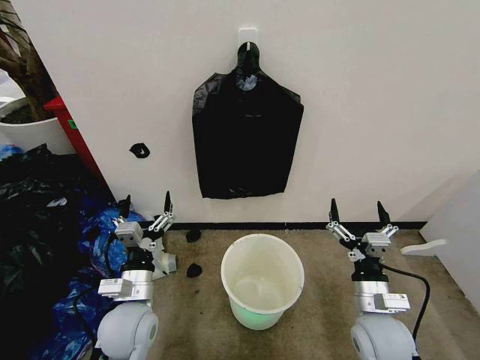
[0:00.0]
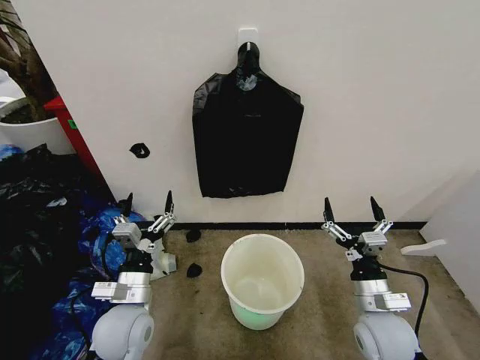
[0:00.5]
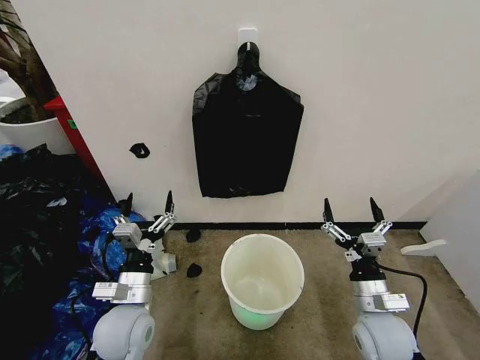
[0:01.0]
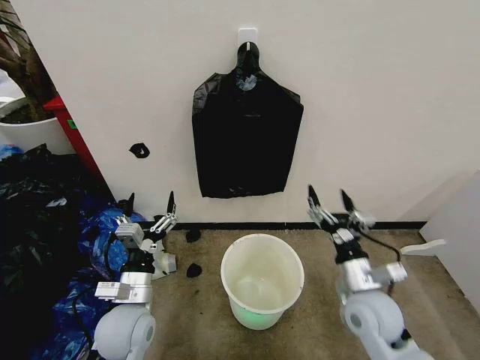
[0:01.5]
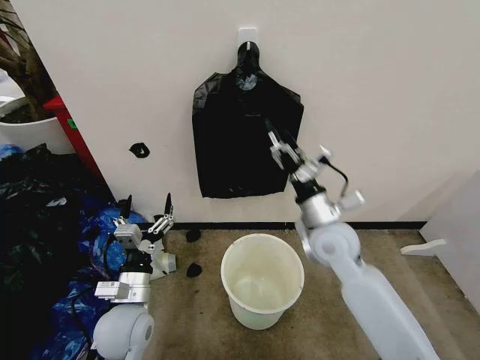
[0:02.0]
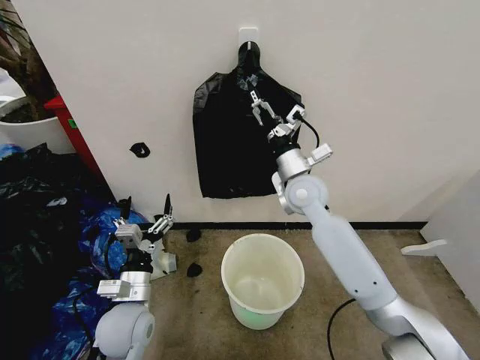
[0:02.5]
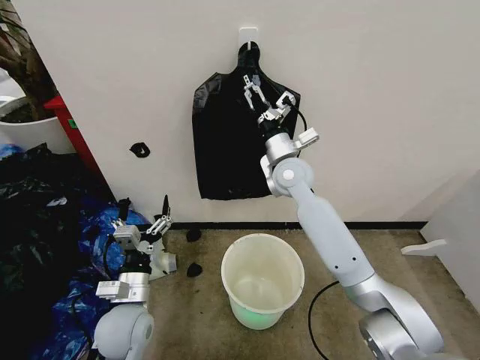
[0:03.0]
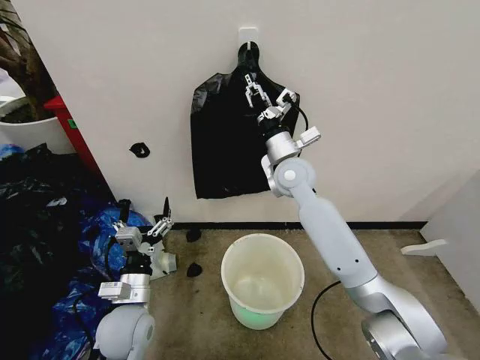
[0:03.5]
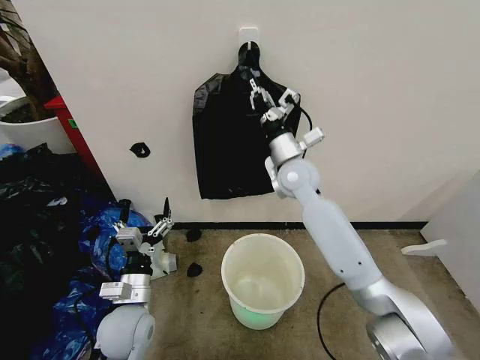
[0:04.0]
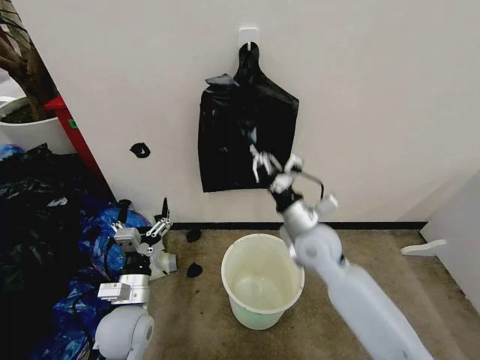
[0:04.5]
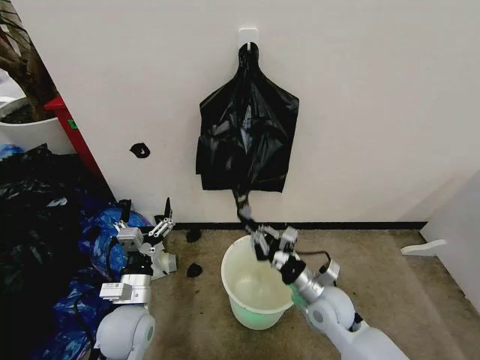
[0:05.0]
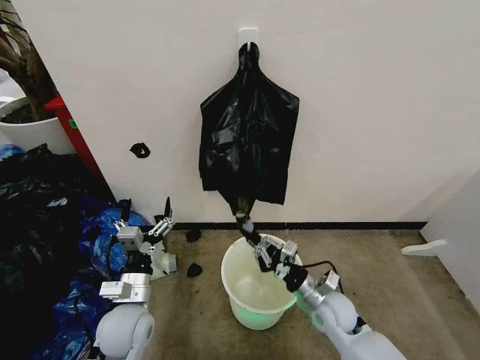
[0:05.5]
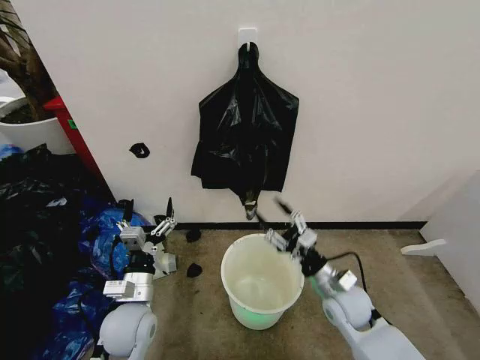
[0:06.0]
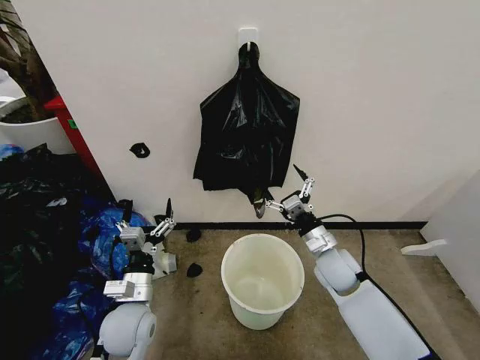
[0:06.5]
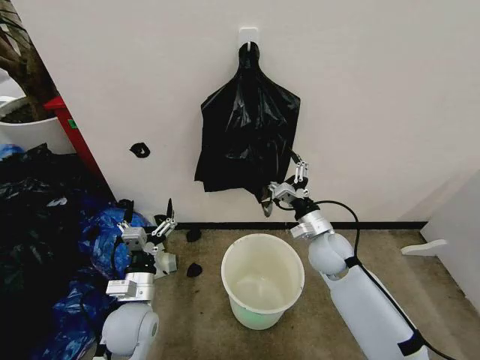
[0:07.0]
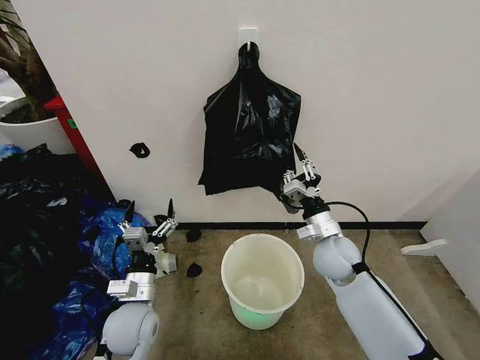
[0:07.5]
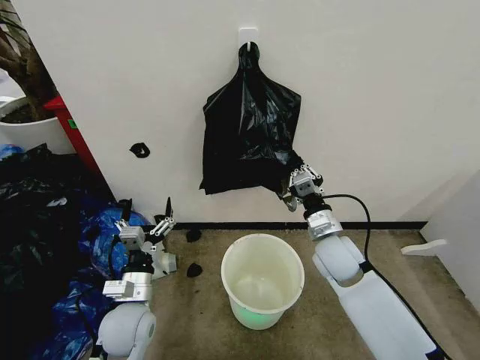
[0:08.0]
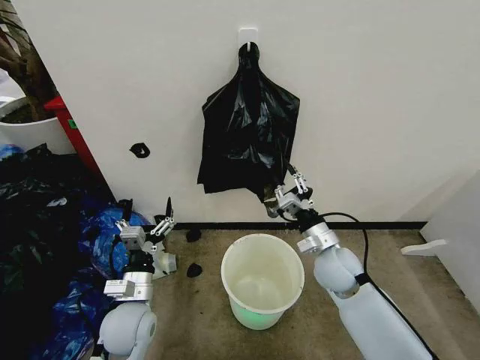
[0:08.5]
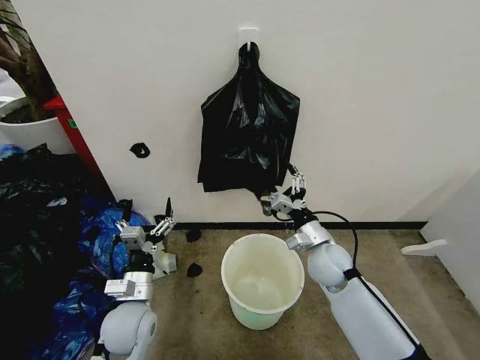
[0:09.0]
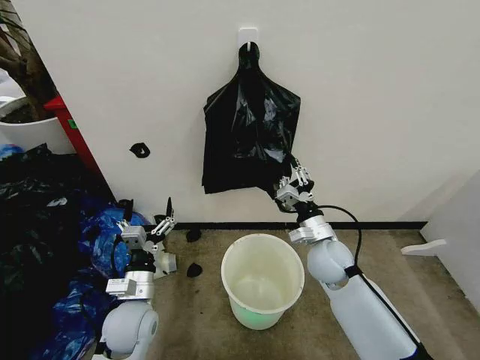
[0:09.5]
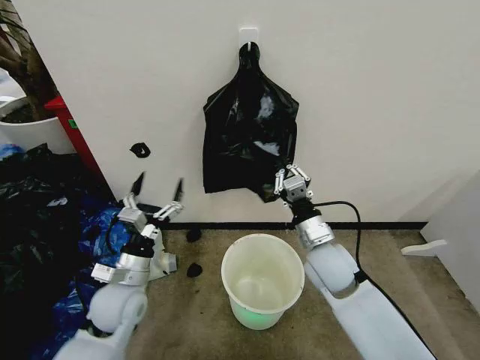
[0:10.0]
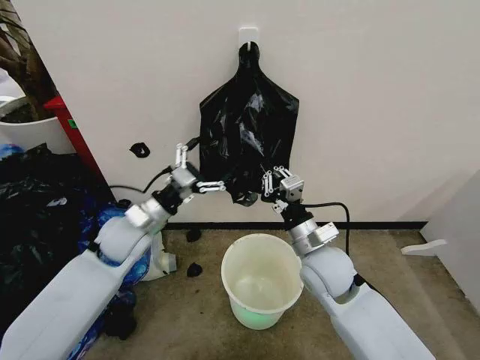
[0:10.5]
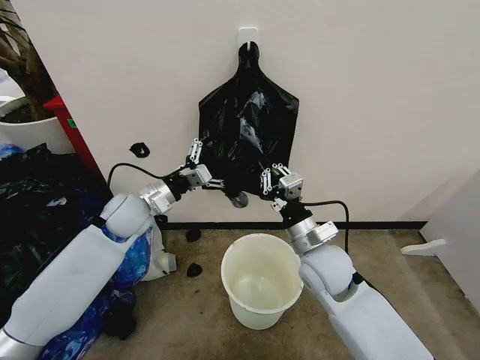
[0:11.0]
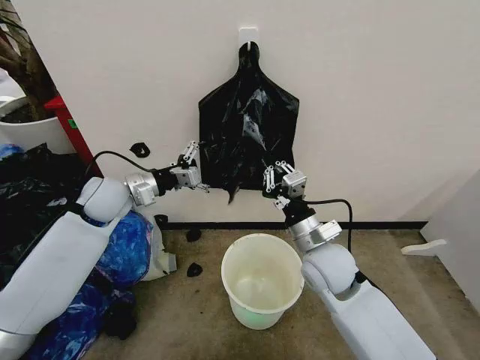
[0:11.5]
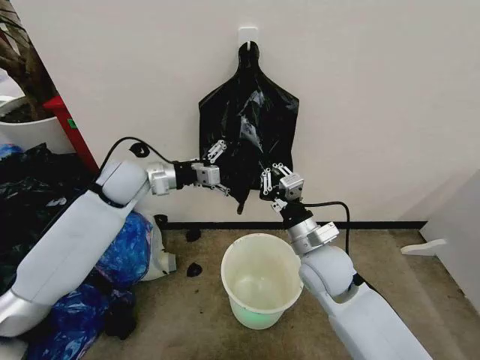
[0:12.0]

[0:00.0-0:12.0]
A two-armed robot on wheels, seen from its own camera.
Task of the whole recording: Place the garbage bag over the trash bin.
0:02.0 to 0:04.0: The right gripper is displaced forward, upward and to the left by about 15 cm, and closes up.
0:04.0 to 0:06.0: The right gripper is displaced downward, backward and to the right by some 30 cm, and opens its fingers.
0:06.0 to 0:08.0: The right gripper is displaced upward and forward by some 10 cm, and closes its fingers.
0:08.0 to 0:10.0: The left gripper moves roughly 5 cm. The right gripper opens and closes again.
0:10.0 to 0:12.0: The left gripper travels forward and upward by some 25 cm.

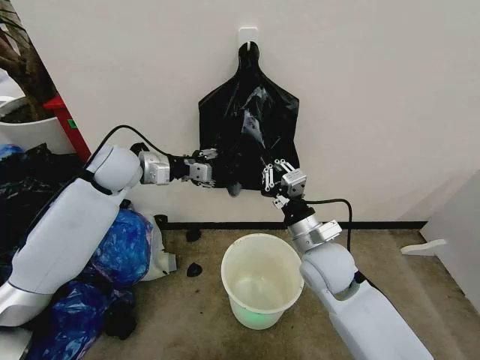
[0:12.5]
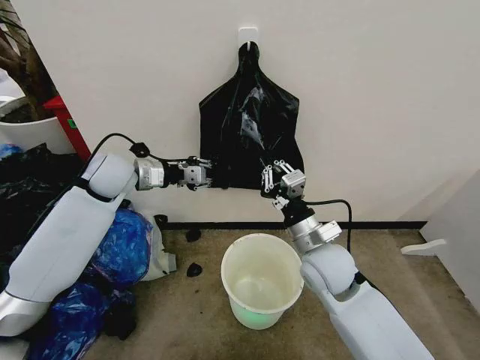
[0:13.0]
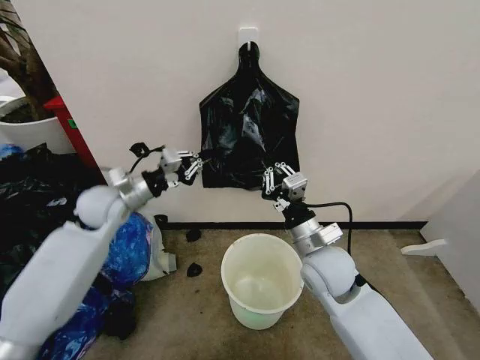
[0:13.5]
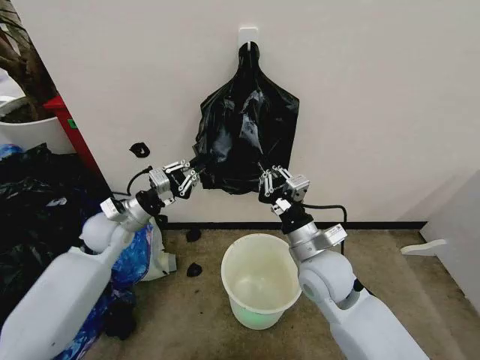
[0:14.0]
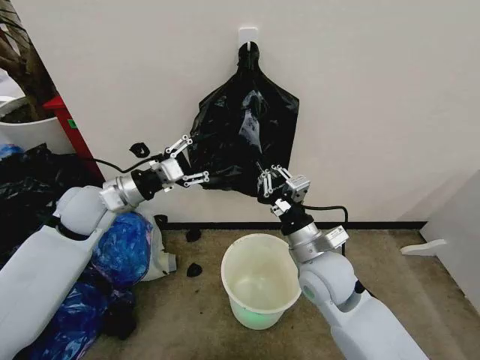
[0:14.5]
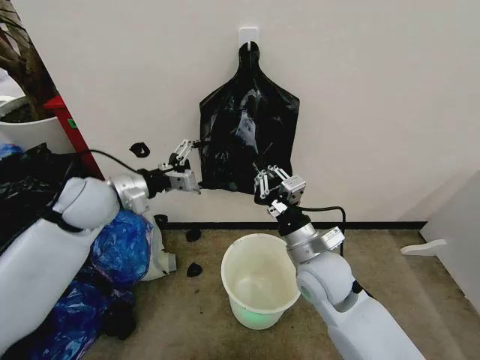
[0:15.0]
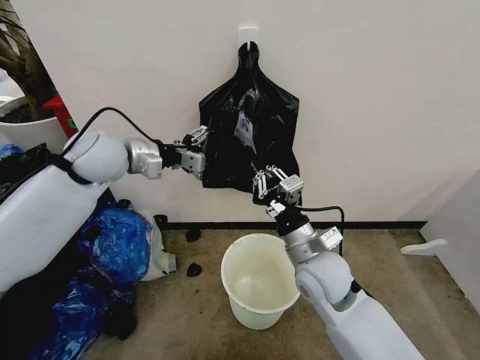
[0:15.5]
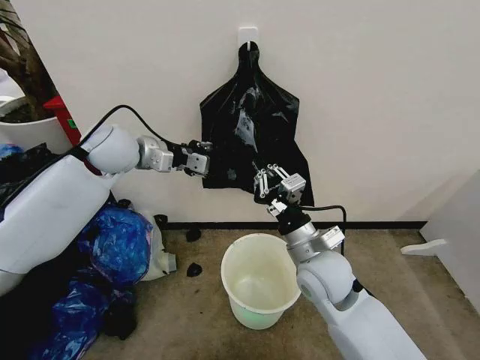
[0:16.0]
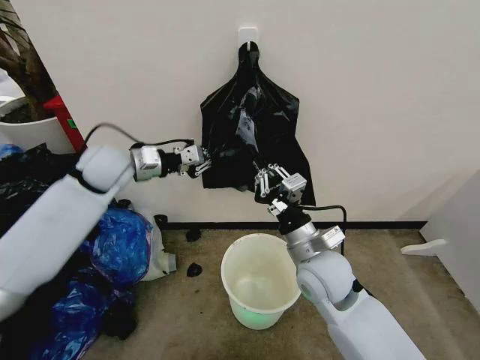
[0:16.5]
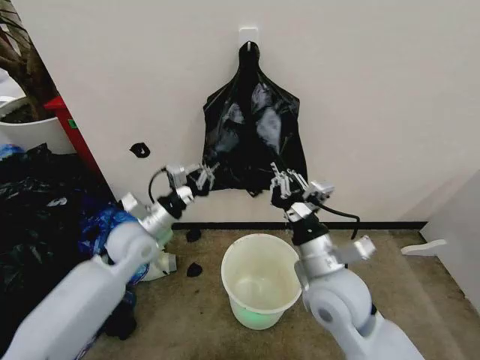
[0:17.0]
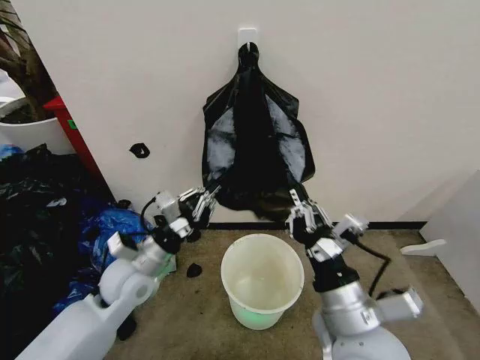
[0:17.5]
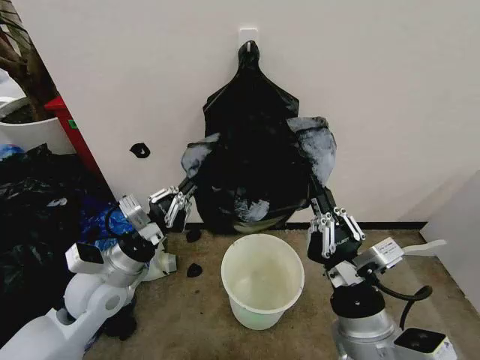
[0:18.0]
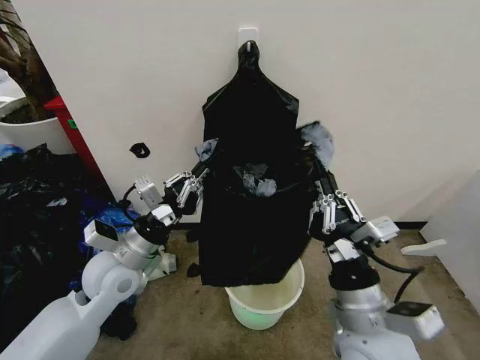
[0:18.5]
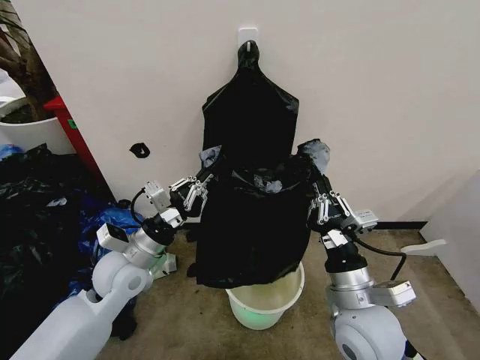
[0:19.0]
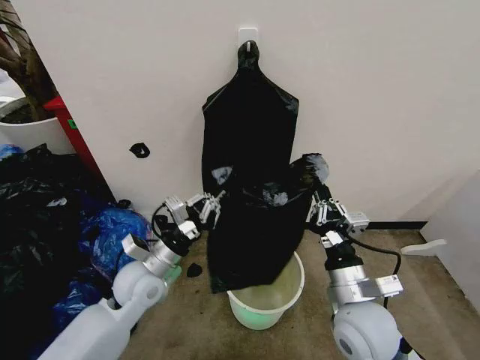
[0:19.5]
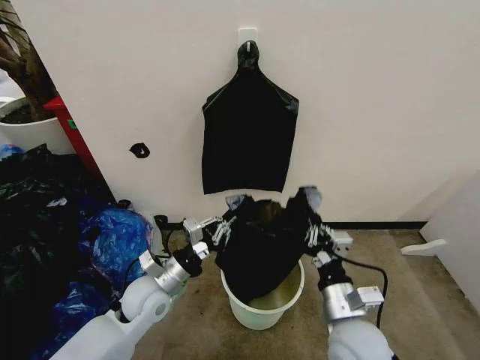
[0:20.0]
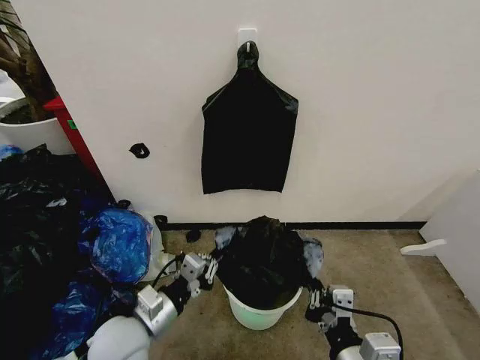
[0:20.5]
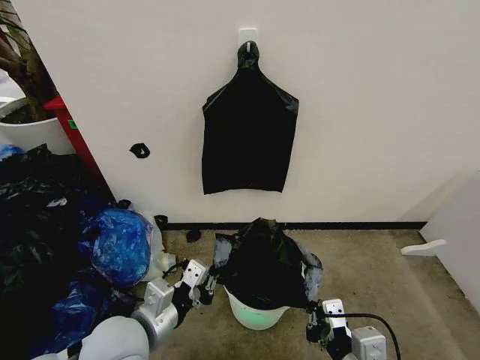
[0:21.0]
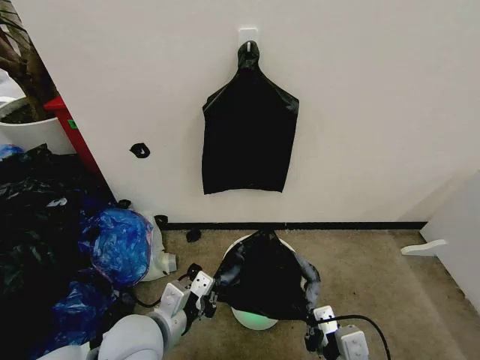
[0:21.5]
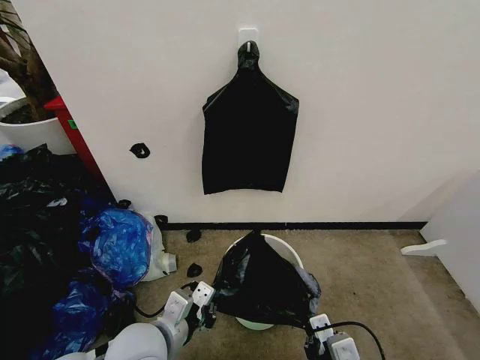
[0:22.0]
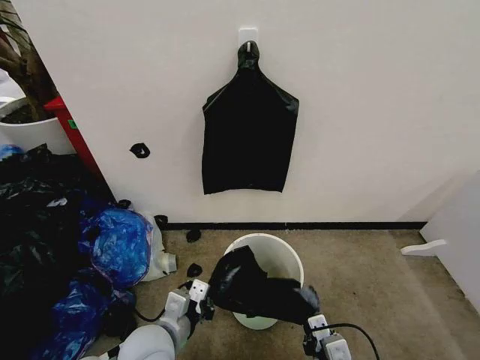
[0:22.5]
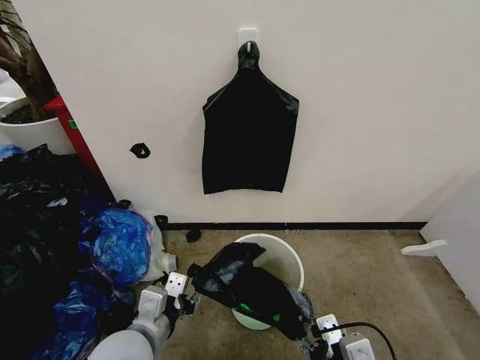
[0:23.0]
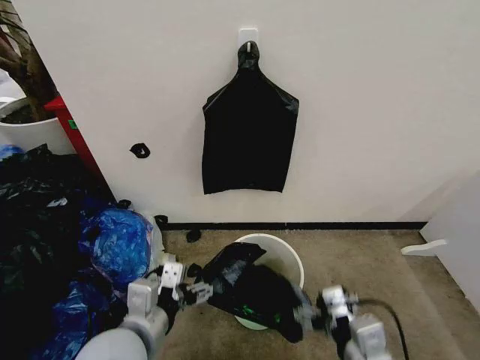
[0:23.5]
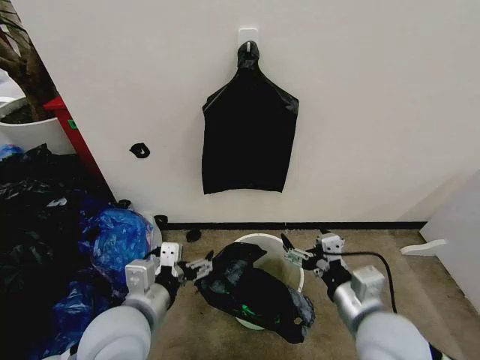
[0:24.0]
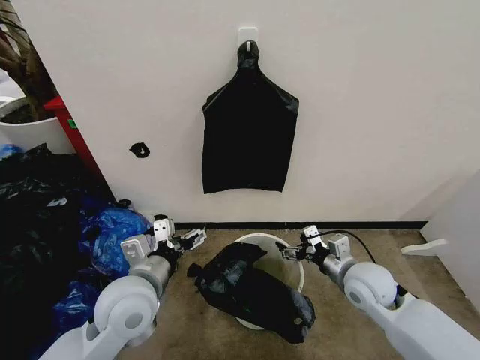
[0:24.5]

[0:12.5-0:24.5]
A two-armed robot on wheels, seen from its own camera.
Task of the whole recording: Place the garbage bag over the trash bin.
0:12.5 to 0:14.5: The left gripper shifts approximately 10 cm backward, moves approximately 15 cm downward and comes back, and closes and opens again.
0:14.5 to 0:16.5: The left gripper travels forward by approximately 10 cm, and closes its fingers.
0:16.5 to 0:18.5: The right gripper shifts roughly 15 cm backward, while the left gripper moves backward and downward, roughly 20 cm.
0:18.5 to 0:20.5: The right gripper moves backward, approximately 10 cm. The left gripper shifts about 10 cm backward and downward.
0:20.5 to 0:22.5: The left gripper reaches about 5 cm upward, then returns, while the right gripper goes about 10 cm downward.
0:22.5 to 0:24.5: The left gripper is displaced upward and forward by some 10 cm, and opens its fingers. Meanwhile the right gripper heads forward, covering some 20 cm, and opens its fingers.

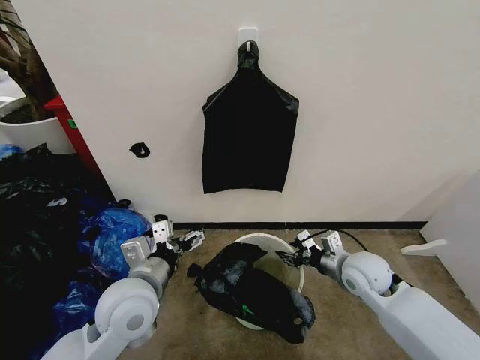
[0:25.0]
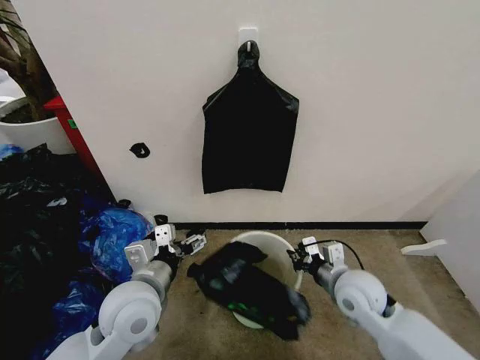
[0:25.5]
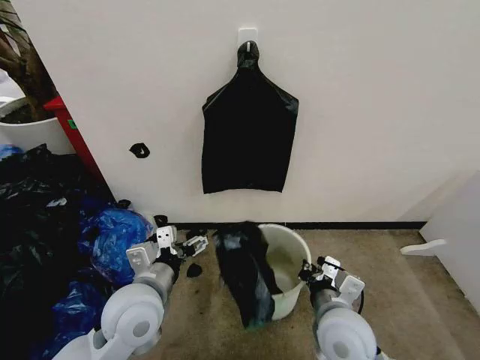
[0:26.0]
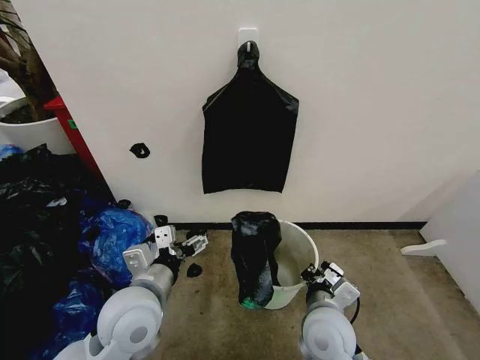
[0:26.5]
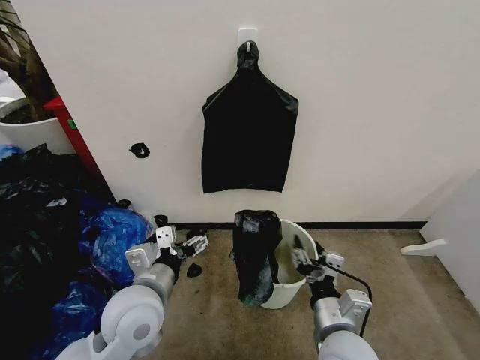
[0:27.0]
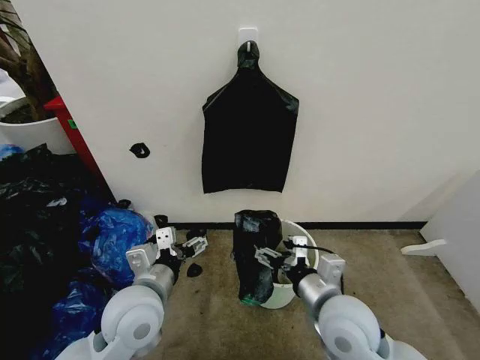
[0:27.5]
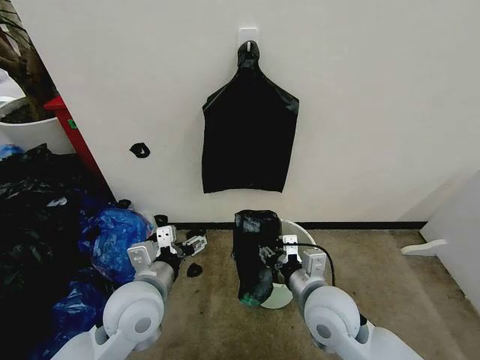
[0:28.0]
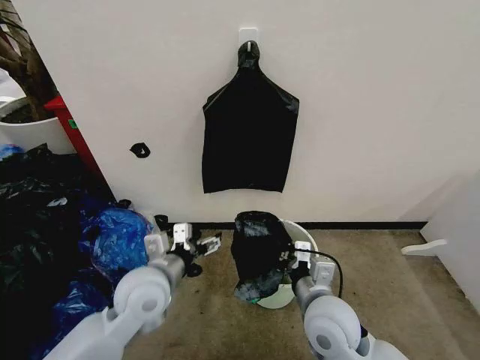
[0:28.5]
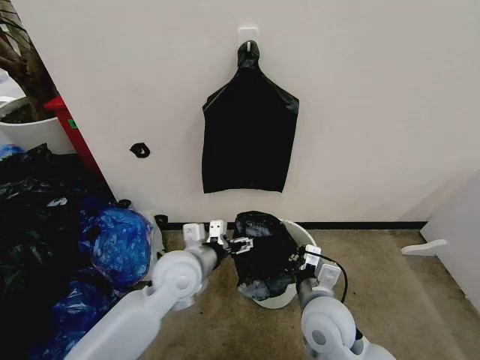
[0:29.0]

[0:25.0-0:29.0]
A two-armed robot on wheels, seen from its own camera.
Task of the whole recording: Place the garbage bag over the trash bin.
0:25.0 to 0:27.0: The right gripper shifts roughly 20 cm backward and to the left, and closes and opens again.
0:27.0 to 0:29.0: The grippers both shift forward by roughly 5 cm. The right gripper closes its fingers.
